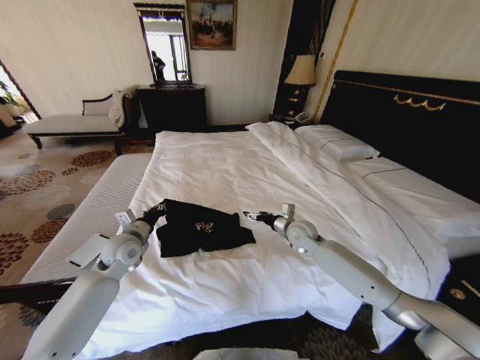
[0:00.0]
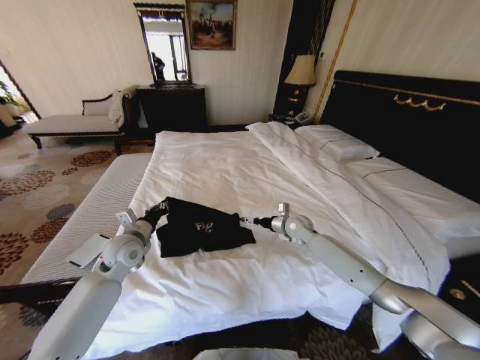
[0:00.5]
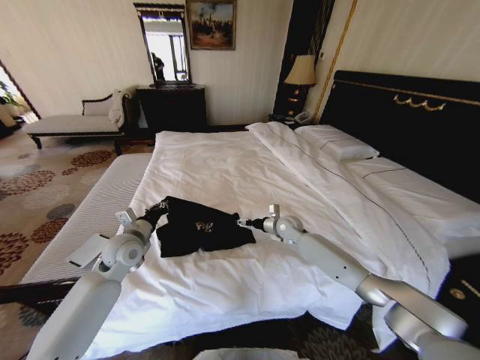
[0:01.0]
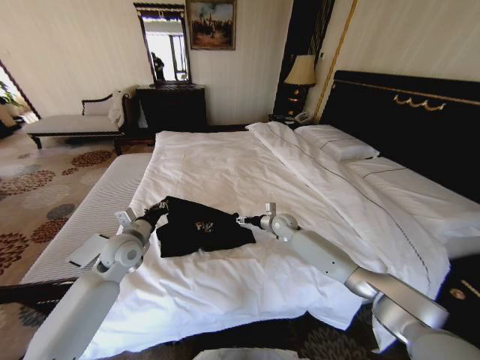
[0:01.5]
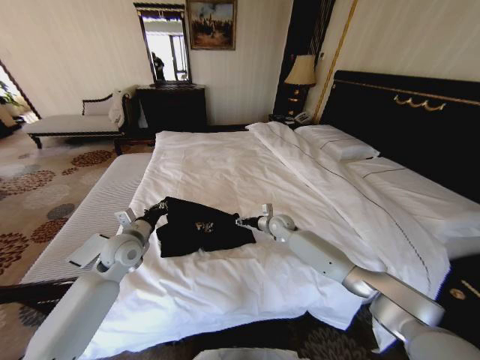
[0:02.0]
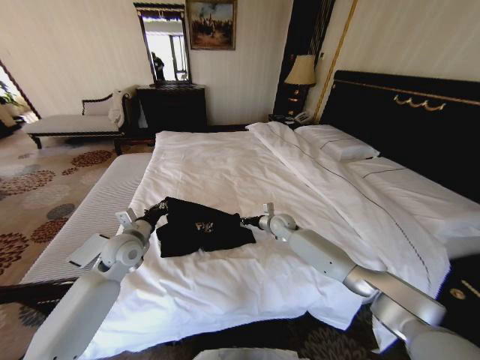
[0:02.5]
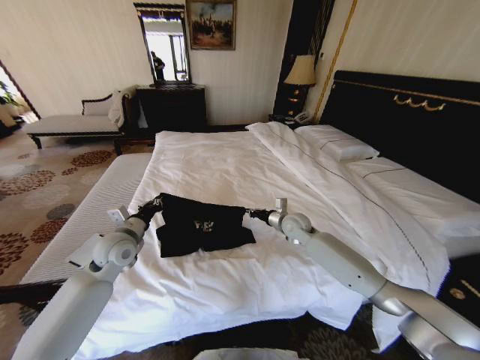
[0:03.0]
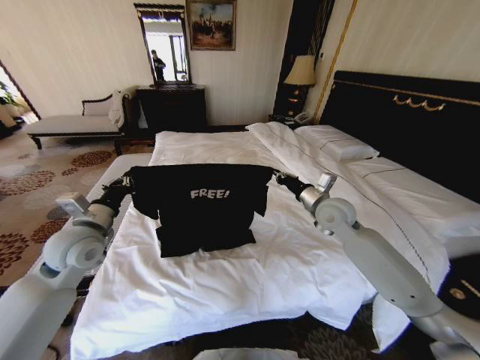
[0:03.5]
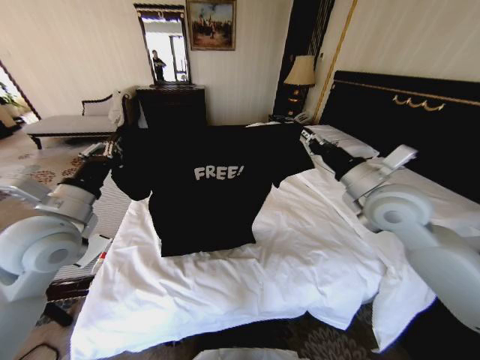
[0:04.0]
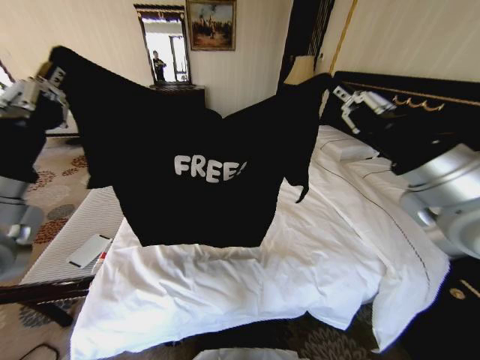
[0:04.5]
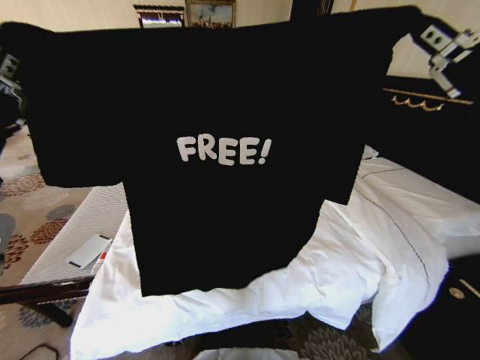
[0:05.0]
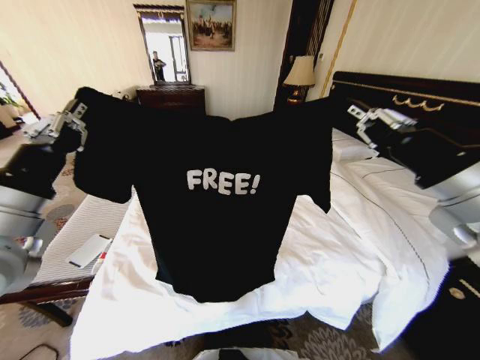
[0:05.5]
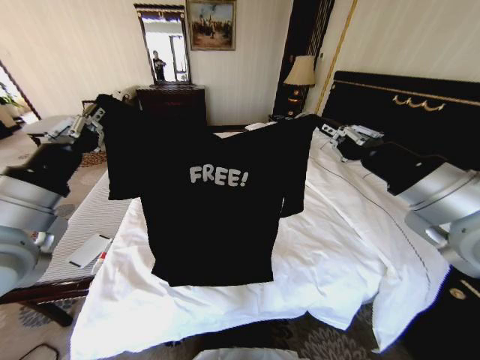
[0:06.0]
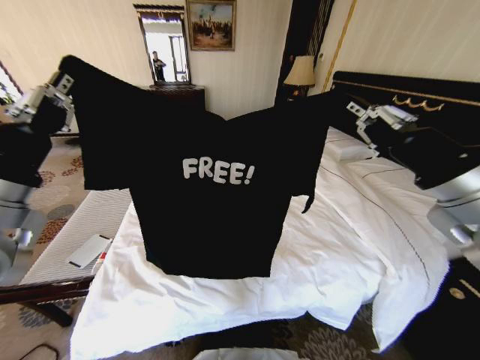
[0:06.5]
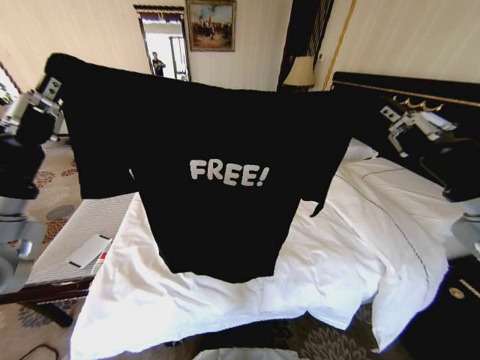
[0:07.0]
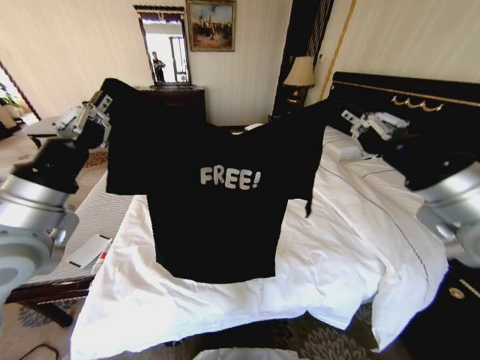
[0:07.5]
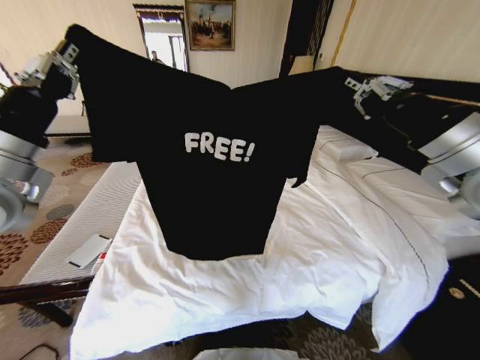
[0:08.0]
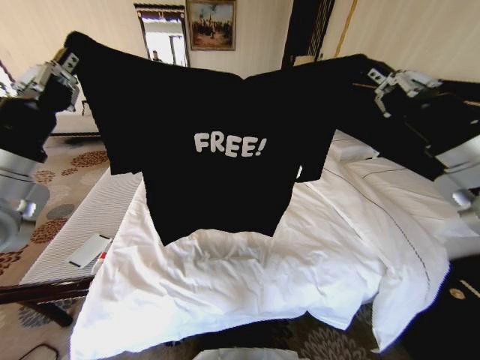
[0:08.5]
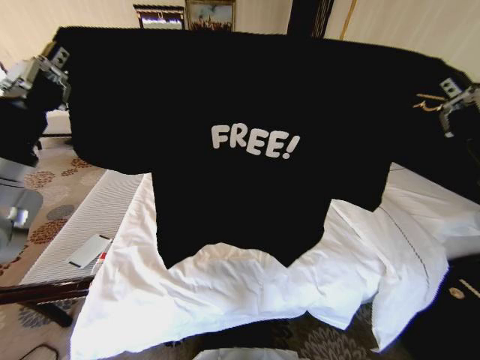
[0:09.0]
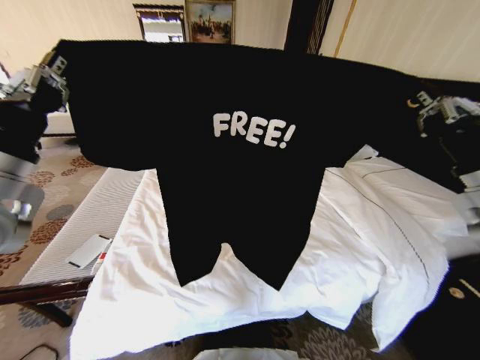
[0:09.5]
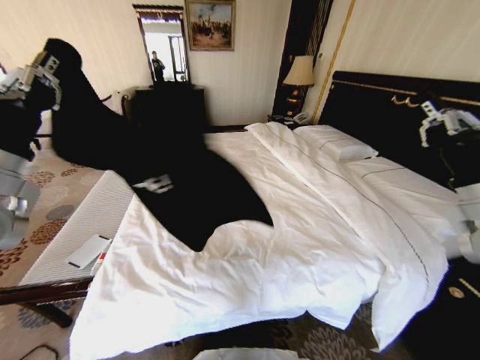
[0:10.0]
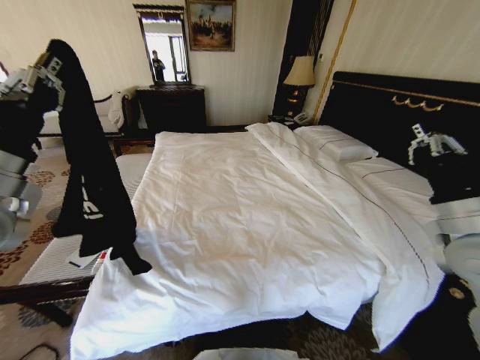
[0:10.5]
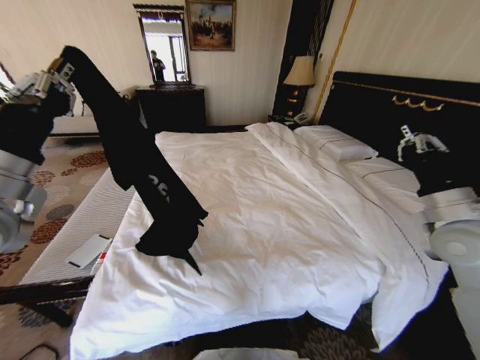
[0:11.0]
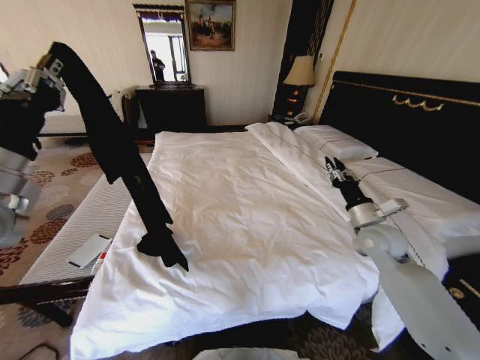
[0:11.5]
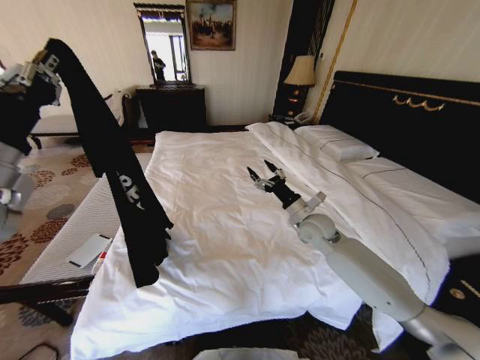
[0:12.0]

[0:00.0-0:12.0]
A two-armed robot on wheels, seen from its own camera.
Task of the whole recording: Fold the clothes on the bed.
0:00.0 to 0:02.0: The right gripper heads forward and downward, covering about 10 cm.
0:02.0 to 0:04.0: The right gripper travels upward and backward by about 35 cm, and closes its fingers, while the left gripper heads upward and backward, covering some 20 cm.
0:04.0 to 0:06.0: The right gripper is displaced backward and upward by approximately 15 cm, while the left gripper shifts roughly 10 cm backward and upward.
0:06.0 to 0:08.0: Both grippers move forward, some 5 cm.
0:08.0 to 0:10.0: The right gripper goes approximately 10 cm downward and to the right.
0:10.0 to 0:12.0: The right gripper moves downward, forward and to the left, some 30 cm, and opens its fingers.

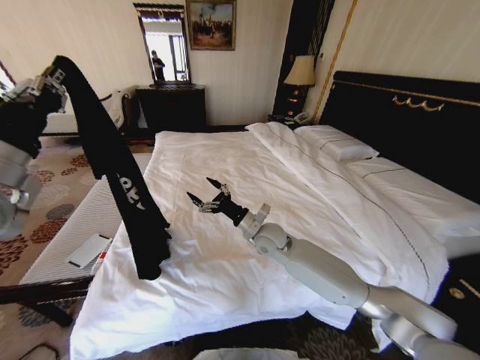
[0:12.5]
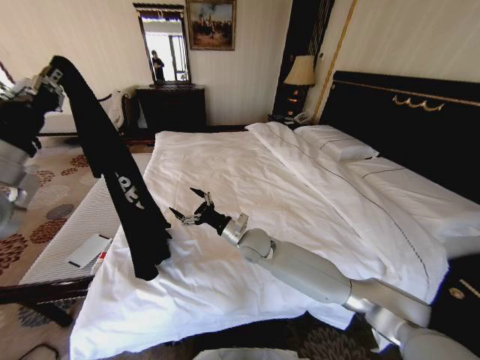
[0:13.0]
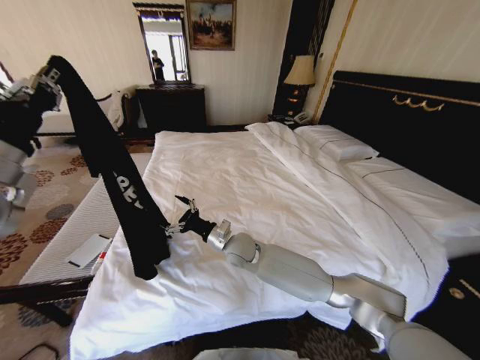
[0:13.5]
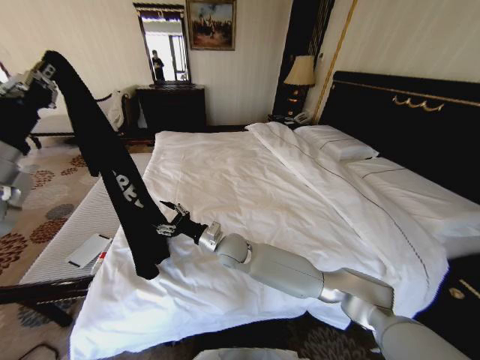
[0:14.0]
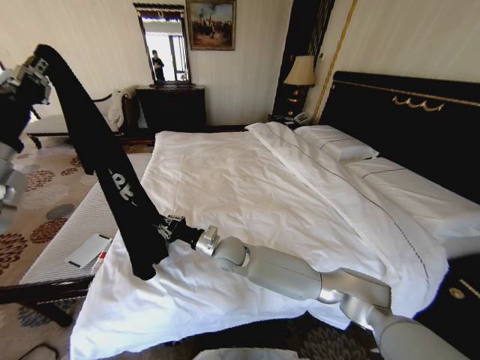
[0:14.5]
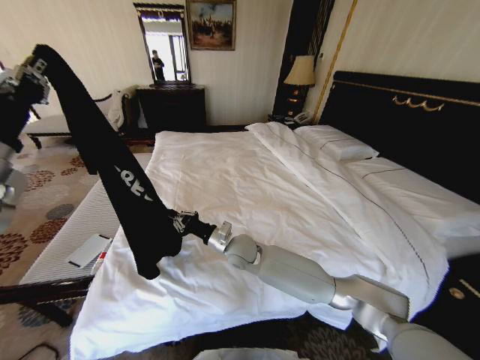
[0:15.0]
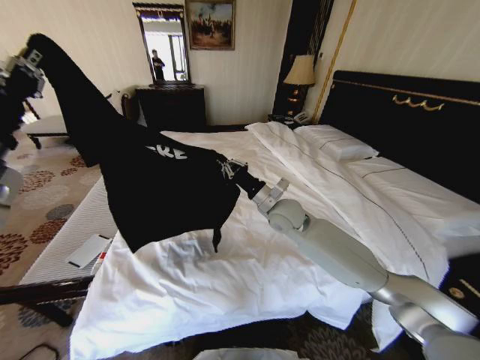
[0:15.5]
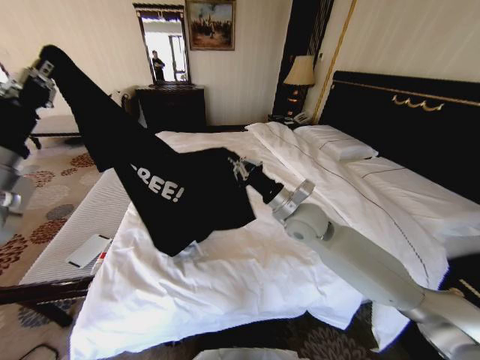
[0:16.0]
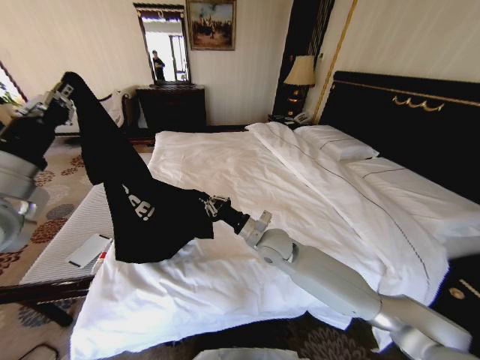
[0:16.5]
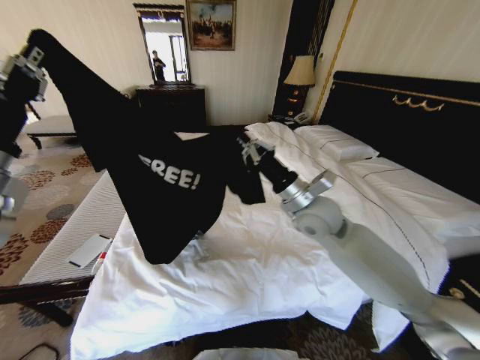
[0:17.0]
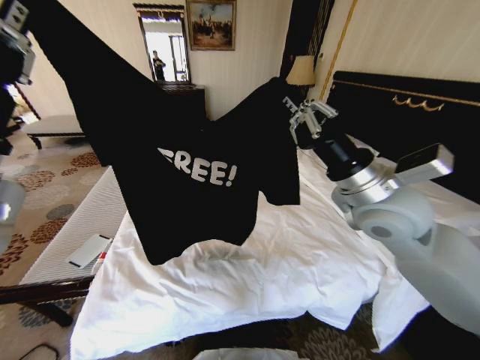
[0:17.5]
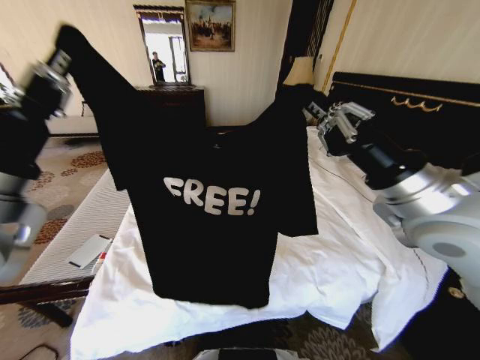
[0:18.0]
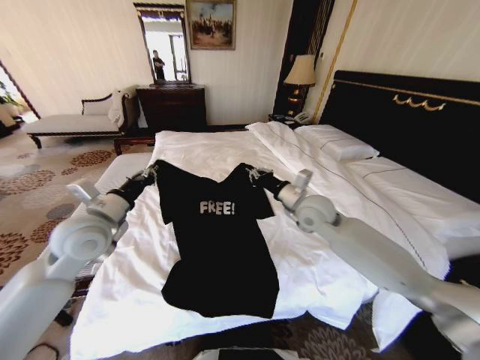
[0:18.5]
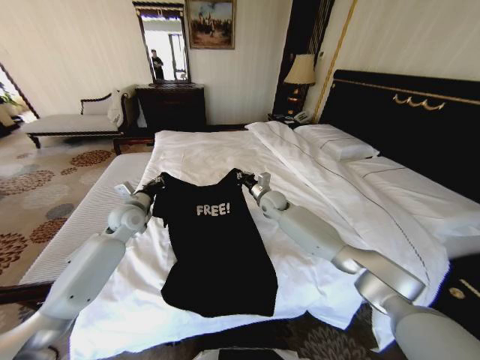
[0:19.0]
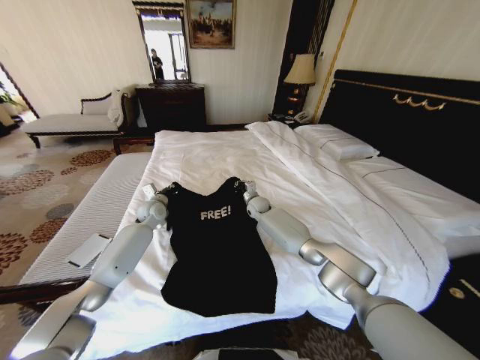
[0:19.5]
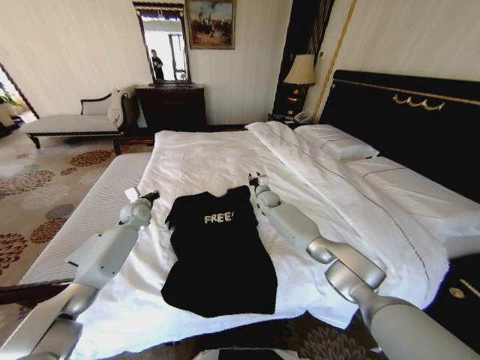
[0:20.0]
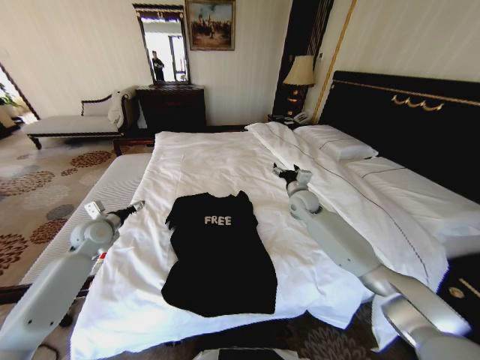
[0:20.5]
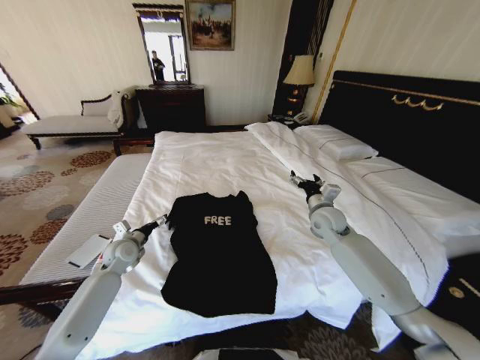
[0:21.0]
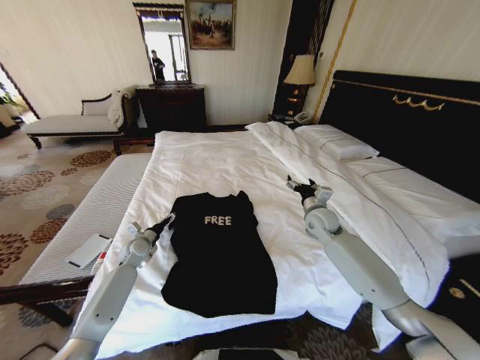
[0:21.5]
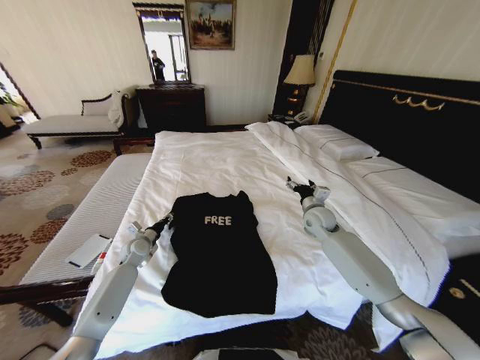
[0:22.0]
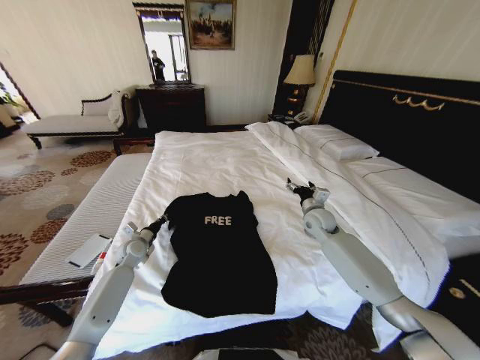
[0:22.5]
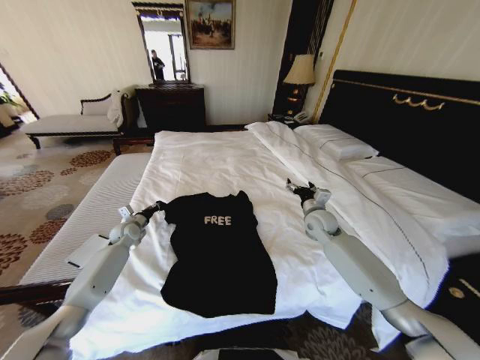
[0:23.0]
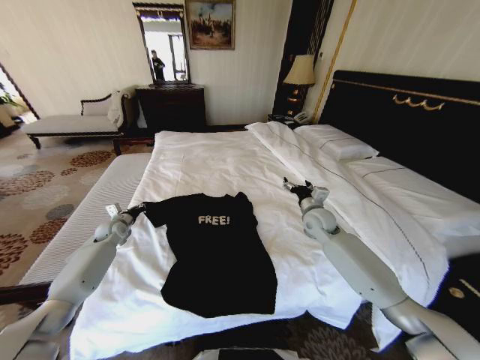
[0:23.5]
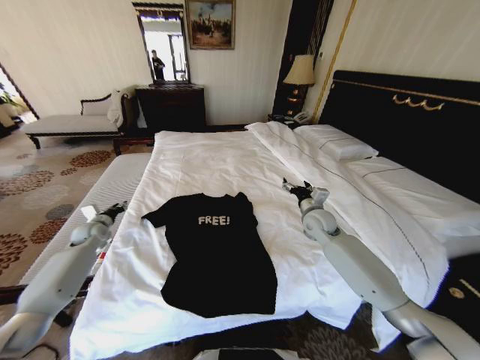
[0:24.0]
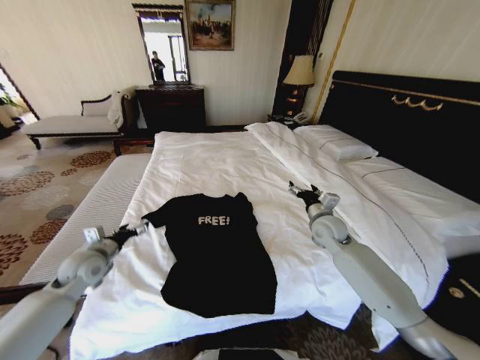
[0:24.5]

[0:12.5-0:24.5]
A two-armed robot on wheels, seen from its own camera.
Task of the whole recording: Fold the clothes on the bed.
0:12.5 to 0:14.5: The right gripper goes roughly 10 cm to the left, and closes.
0:14.5 to 0:16.5: The right gripper moves to the right and upward, some 15 cm.
0:16.5 to 0:18.5: The right gripper goes approximately 15 cm to the right and upward. The left gripper shifts approximately 15 cm downward and forward.
0:18.5 to 0:20.5: The left gripper travels downward, to the left and forward by approximately 20 cm, and opens. The right gripper moves forward and downward, roughly 15 cm, and opens up.
0:20.5 to 0:22.5: The right gripper shifts about 5 cm backward. The left gripper travels downward and to the right by approximately 15 cm, and closes its fingers.
0:22.5 to 0:24.5: The left gripper goes roughly 15 cm upward and backward, and opens.

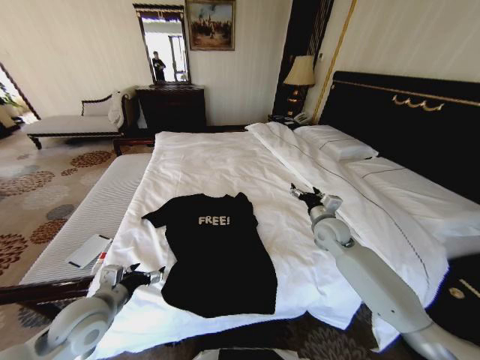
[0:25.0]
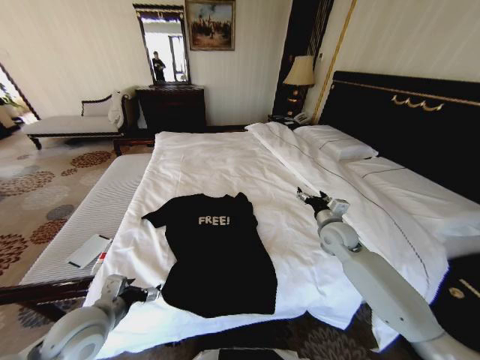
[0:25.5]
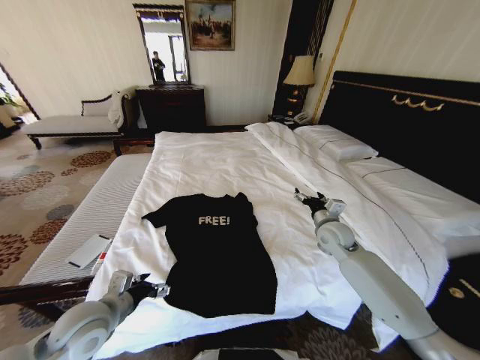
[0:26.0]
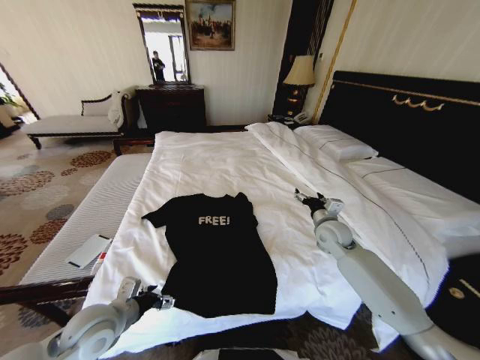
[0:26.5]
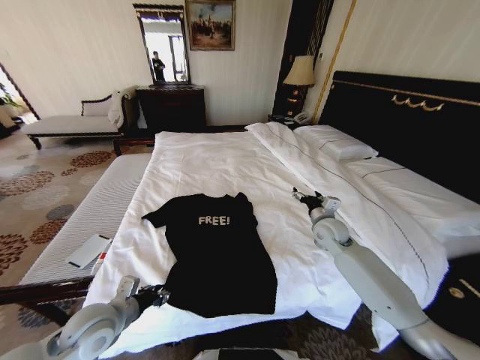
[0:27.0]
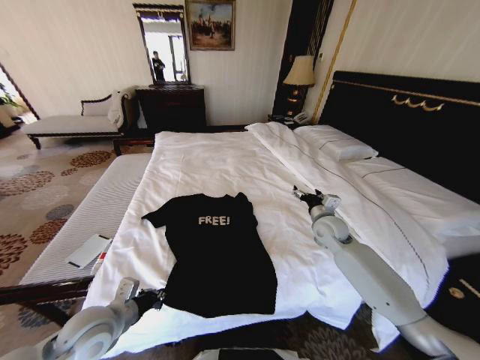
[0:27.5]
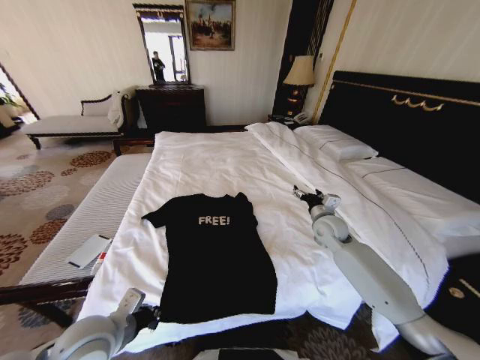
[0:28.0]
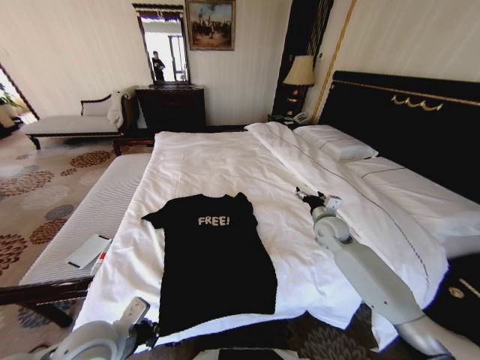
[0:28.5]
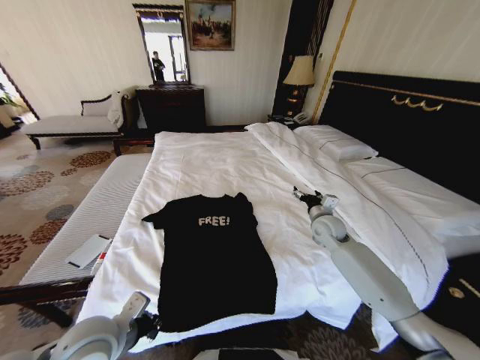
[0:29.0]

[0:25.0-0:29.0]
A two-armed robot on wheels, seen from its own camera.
Task of the whole recording: Fold the clothes on the bed.
0:25.0 to 0:27.0: The left gripper closes its fingers.
0:27.0 to 0:29.0: The left gripper shifts by roughly 5 cm, and closes.
